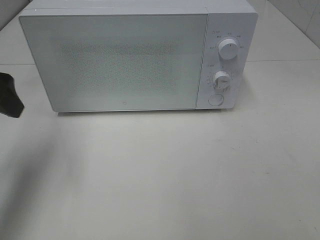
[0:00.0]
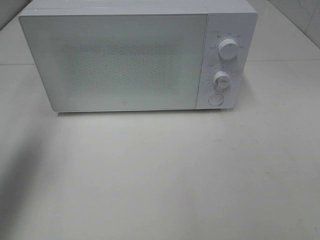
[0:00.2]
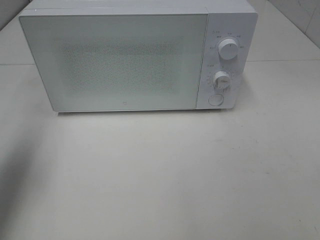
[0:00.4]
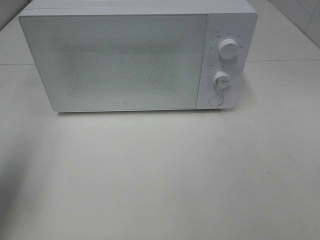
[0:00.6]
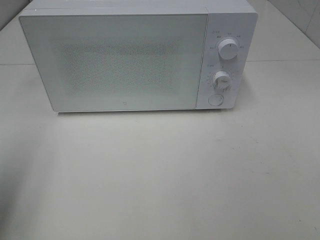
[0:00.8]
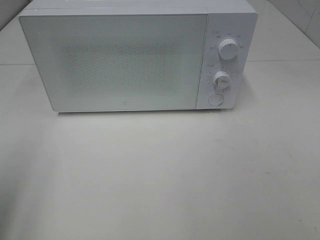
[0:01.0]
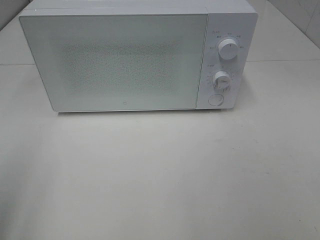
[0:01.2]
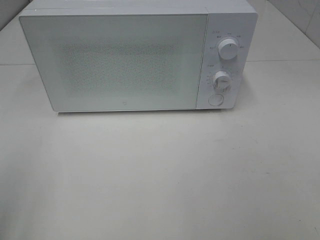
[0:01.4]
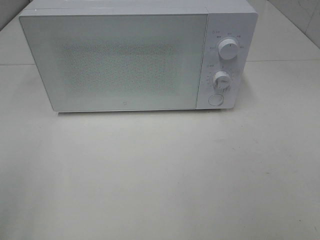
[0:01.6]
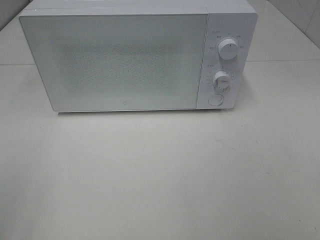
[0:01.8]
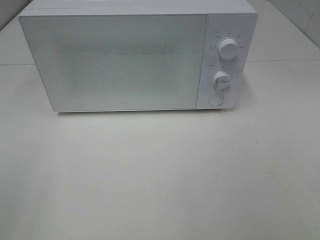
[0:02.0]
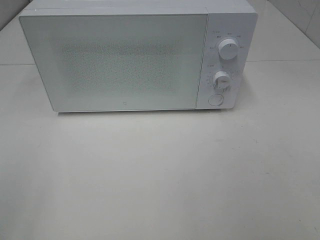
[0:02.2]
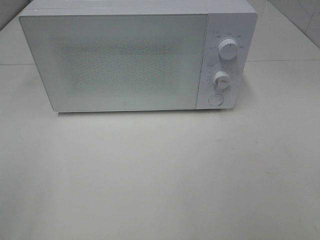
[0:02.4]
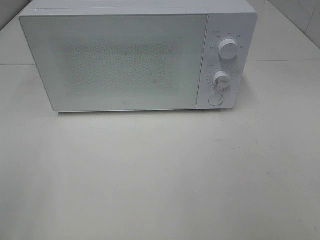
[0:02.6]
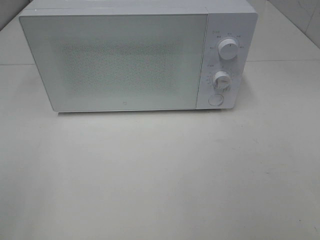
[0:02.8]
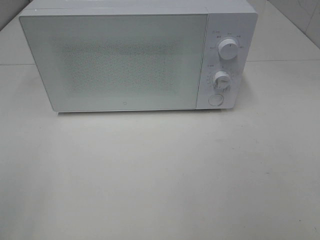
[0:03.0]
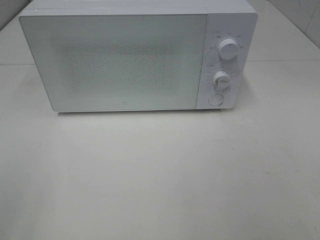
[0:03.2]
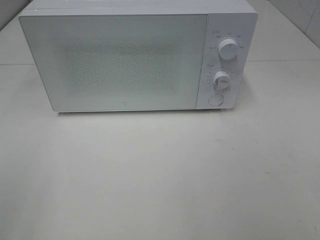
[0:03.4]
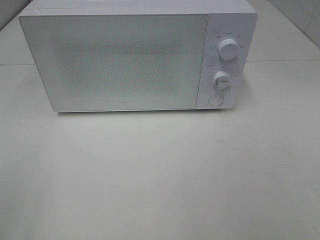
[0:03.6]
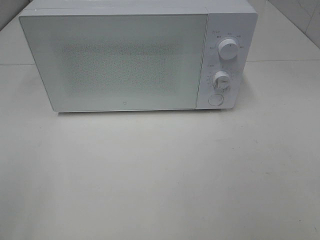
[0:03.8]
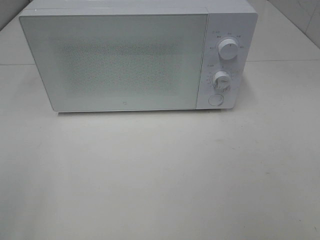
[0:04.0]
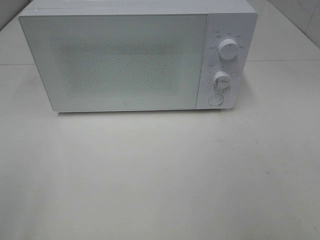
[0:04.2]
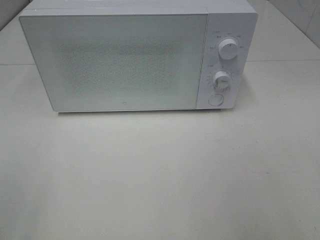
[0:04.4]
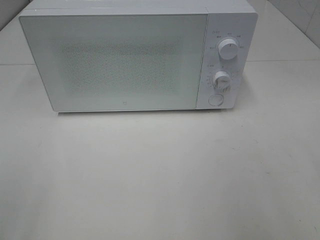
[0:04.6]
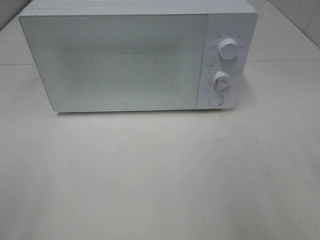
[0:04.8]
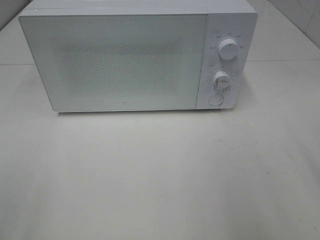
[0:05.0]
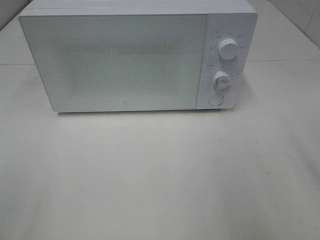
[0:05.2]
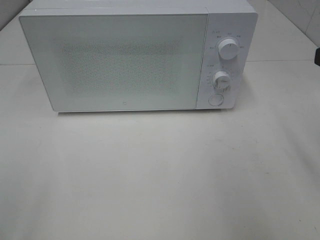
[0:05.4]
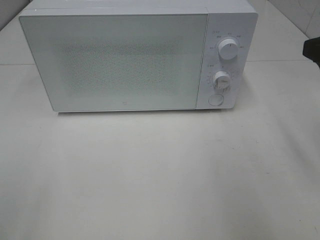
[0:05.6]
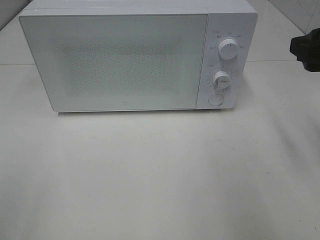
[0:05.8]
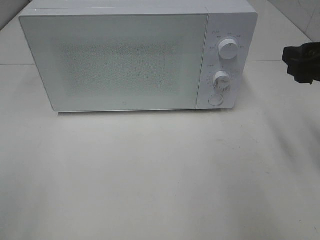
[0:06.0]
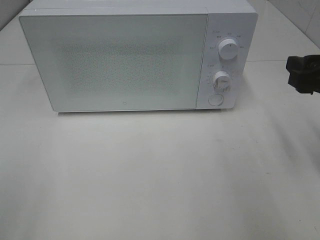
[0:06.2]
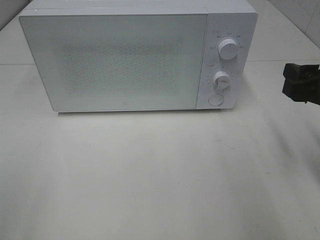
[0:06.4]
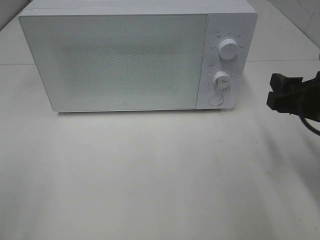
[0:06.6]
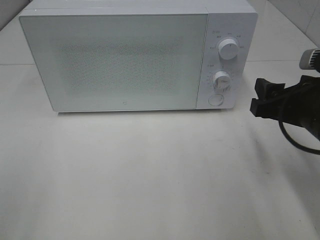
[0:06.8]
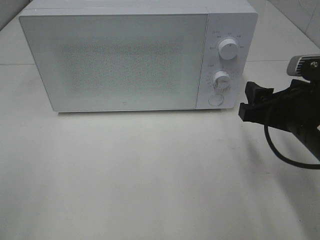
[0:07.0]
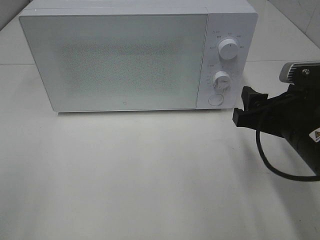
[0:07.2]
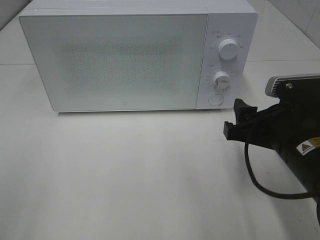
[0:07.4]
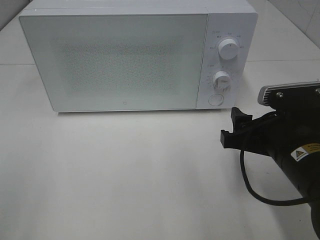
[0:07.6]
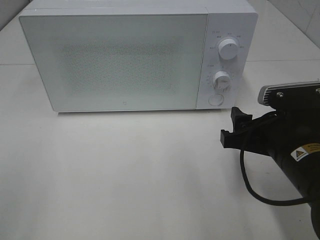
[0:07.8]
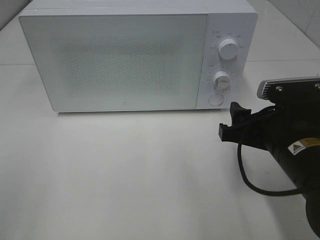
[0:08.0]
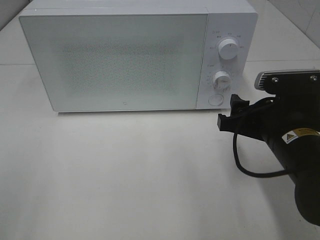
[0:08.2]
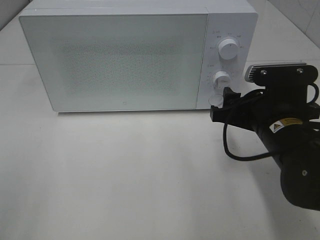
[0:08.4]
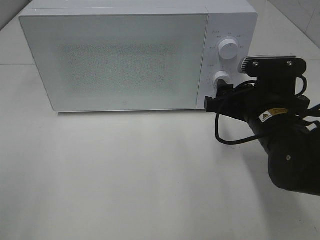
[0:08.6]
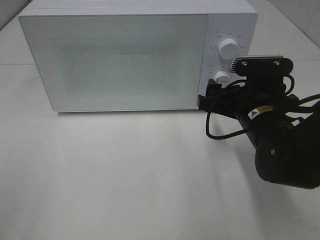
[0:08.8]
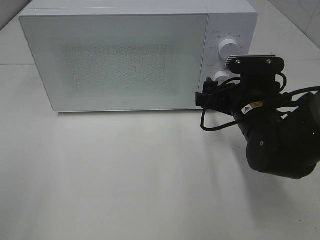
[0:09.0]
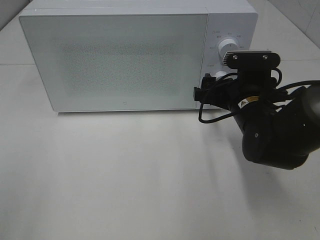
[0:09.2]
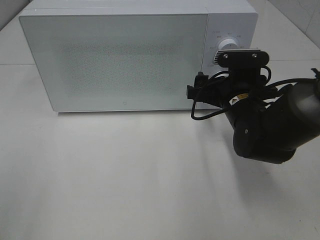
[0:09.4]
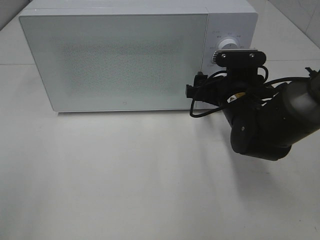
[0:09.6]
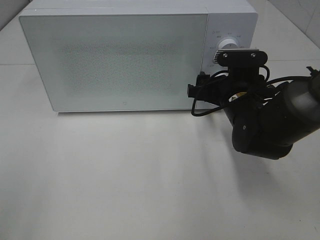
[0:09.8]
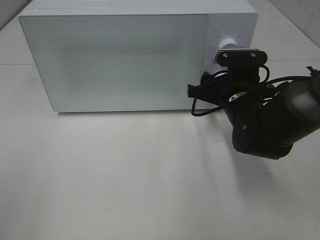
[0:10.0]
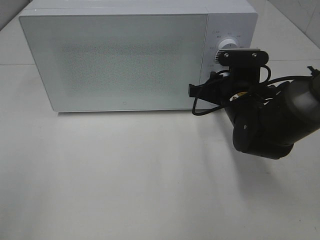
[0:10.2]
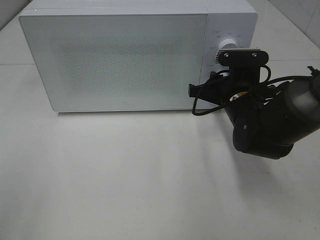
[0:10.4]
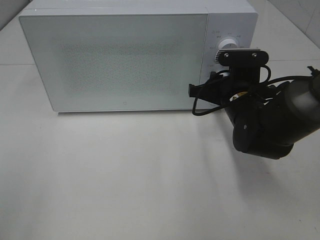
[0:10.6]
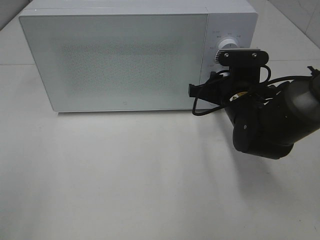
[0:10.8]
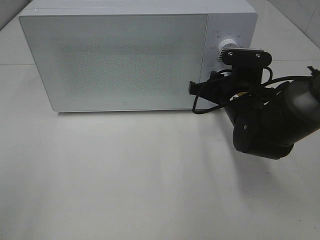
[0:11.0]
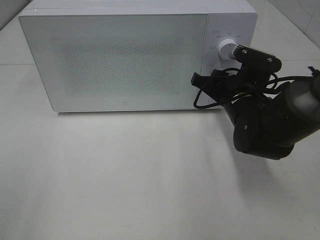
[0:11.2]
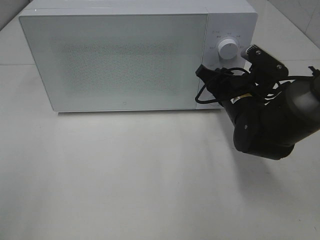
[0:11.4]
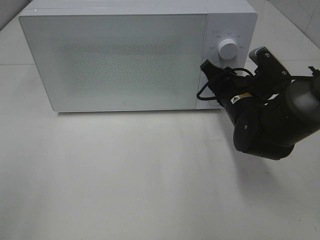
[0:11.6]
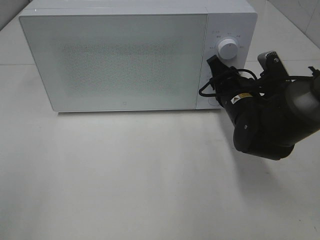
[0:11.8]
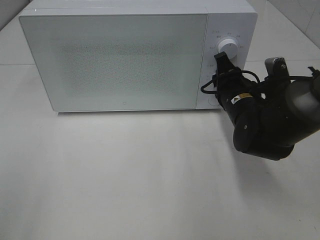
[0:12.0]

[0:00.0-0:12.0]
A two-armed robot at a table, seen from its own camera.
Task of the whole recording: Heat Sandwich.
0:00.0 to 0:01.6: The left gripper is displaced backward by roughly 25 cm.
0:04.4 to 0:06.0: The right gripper shifts about 15 cm forward.
0:06.0 to 0:07.6: The right gripper moves downward and to the left, about 10 cm.
0:07.6 to 0:09.0: The right gripper is displaced forward by some 10 cm.
0:09.0 to 0:10.4: The right gripper closes its fingers.

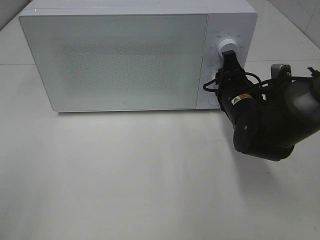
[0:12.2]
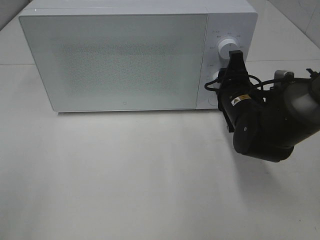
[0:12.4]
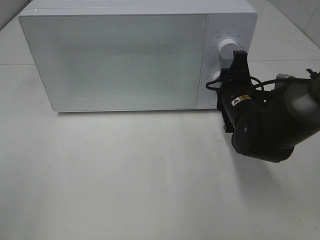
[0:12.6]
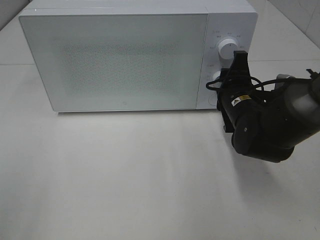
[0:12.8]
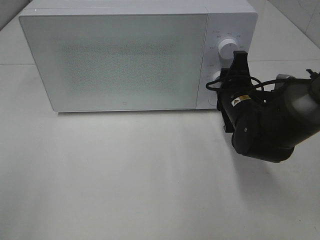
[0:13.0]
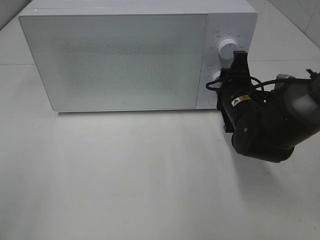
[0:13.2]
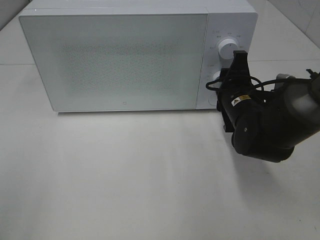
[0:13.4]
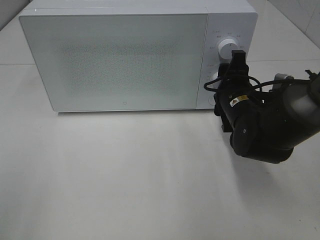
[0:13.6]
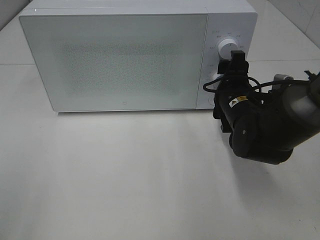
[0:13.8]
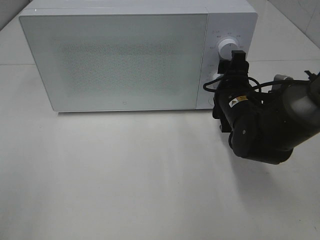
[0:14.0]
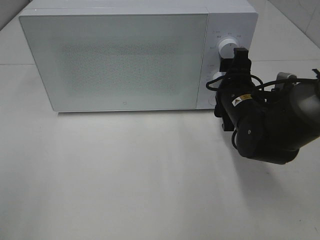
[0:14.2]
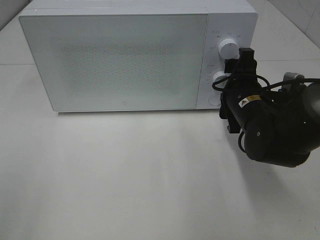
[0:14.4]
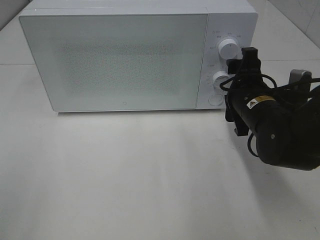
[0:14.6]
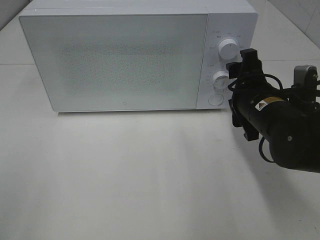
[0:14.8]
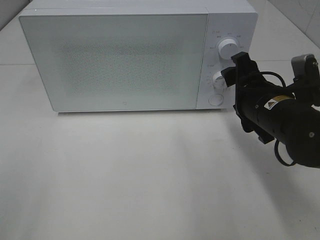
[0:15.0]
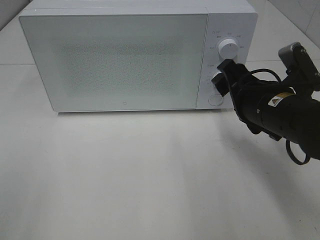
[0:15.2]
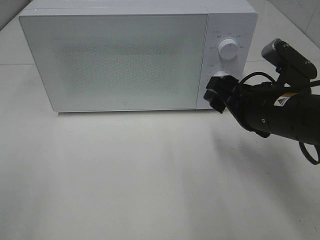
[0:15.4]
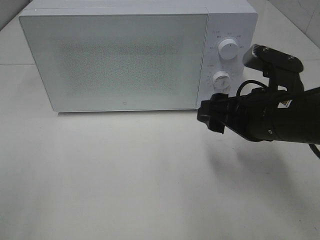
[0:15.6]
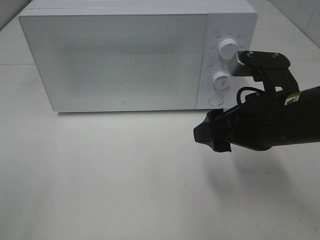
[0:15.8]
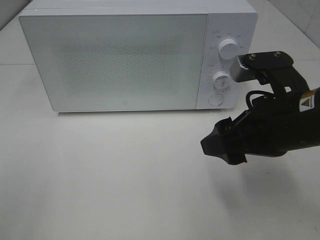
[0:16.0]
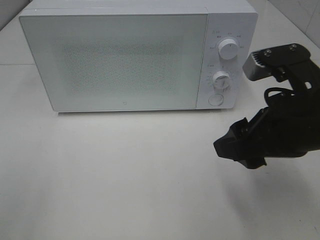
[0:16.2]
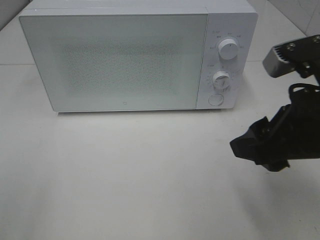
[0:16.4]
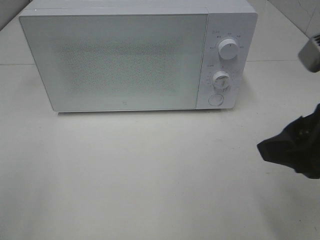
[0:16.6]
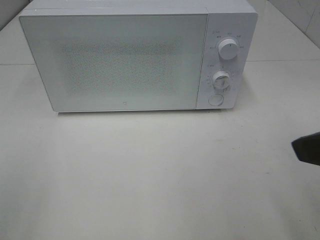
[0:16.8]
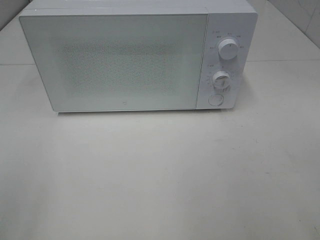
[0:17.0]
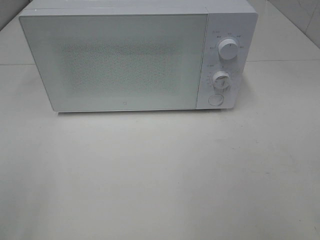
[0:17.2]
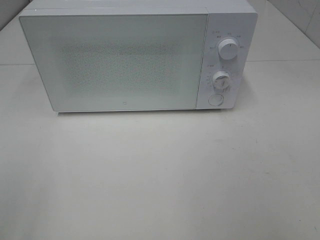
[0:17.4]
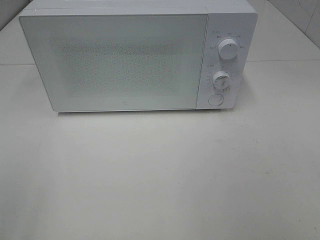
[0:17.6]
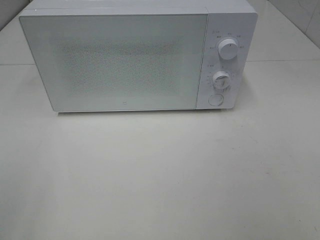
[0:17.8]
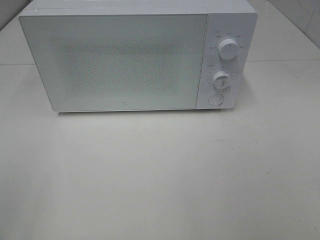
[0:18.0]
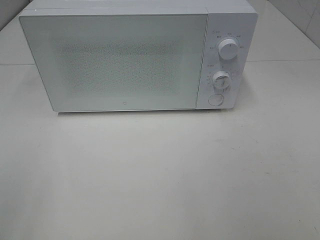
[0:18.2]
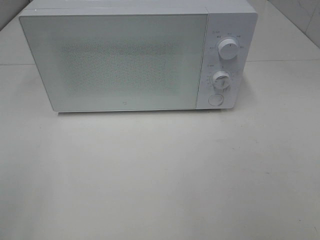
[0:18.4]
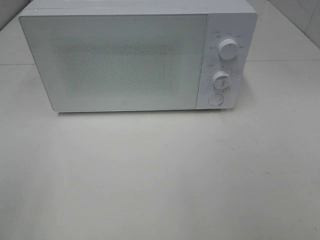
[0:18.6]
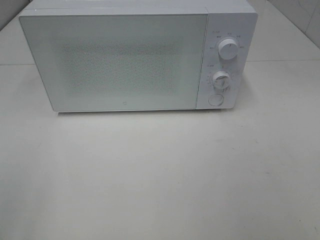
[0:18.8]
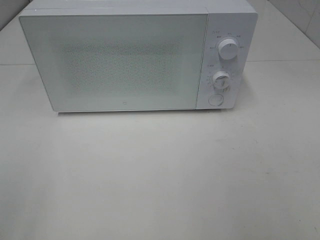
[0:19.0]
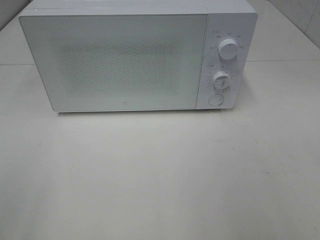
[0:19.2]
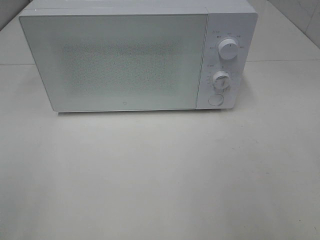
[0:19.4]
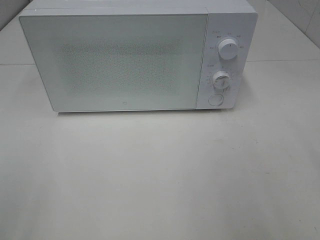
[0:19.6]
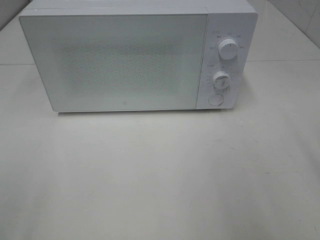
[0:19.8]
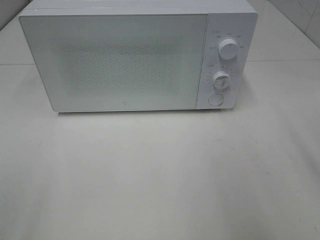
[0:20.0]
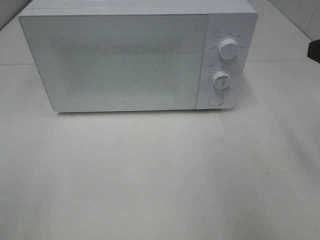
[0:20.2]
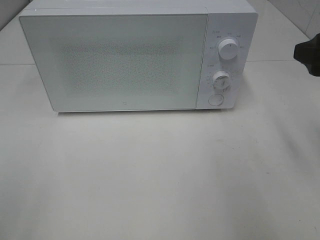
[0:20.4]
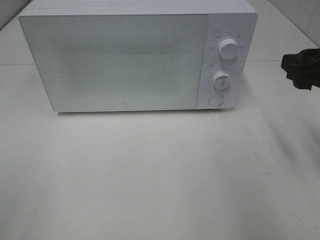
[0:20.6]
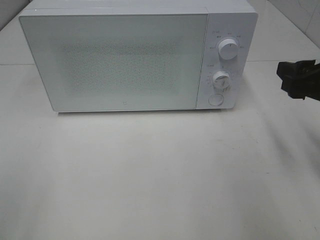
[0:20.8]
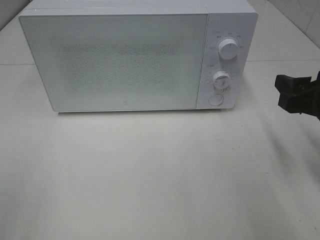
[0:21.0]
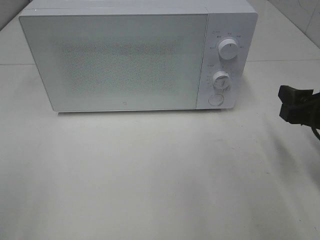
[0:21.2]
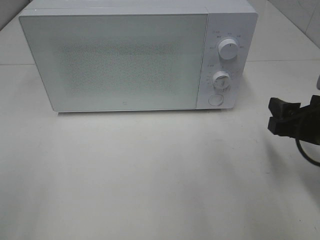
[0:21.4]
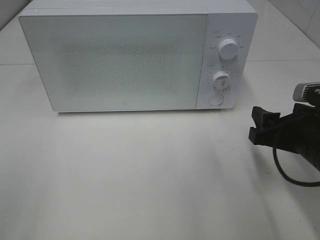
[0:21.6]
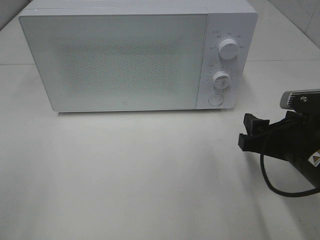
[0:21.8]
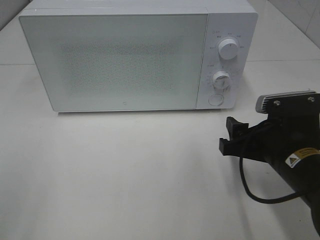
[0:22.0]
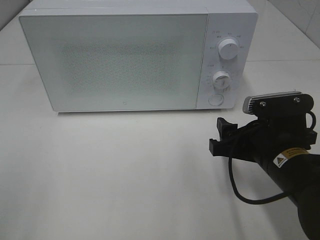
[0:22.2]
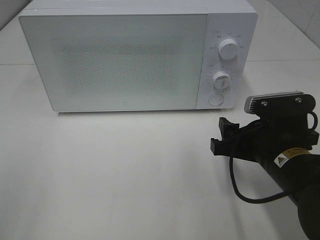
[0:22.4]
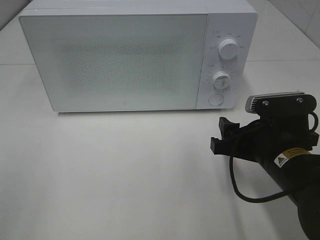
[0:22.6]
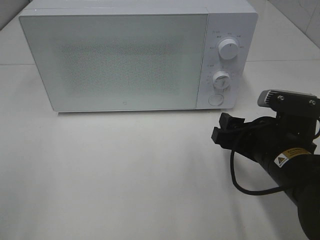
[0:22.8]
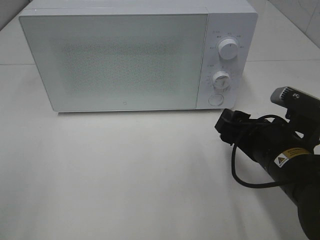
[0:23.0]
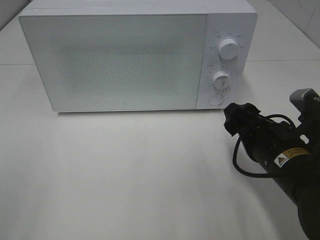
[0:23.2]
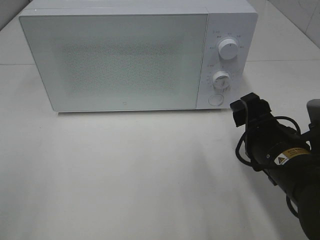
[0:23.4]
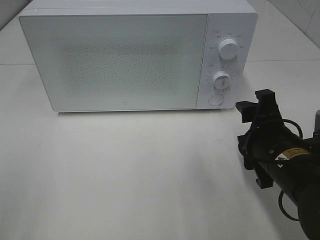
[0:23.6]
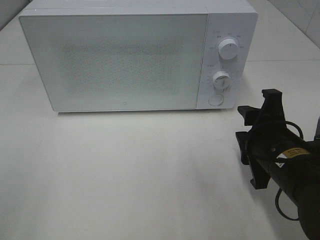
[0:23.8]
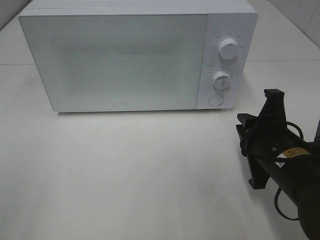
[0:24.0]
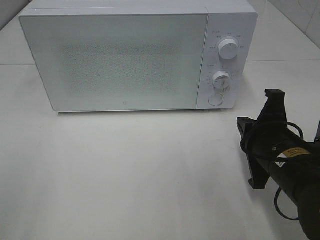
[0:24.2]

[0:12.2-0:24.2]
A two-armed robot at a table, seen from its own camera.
Task of the whole recording: Heat Sandwich.
Step, 0:12.2 to 0:14.4: Right hand: twist timer button.
0:12.2 to 0:13.8: The right gripper opens.
0:13.8 to 0:15.2: The right gripper is displaced backward and upward by approximately 10 cm.
0:15.2 to 0:16.6: The right gripper heads backward and upward, covering roughly 15 cm.
0:16.6 to 0:18.2: The right gripper shifts some 15 cm backward and to the right.
0:19.8 to 0:21.2: The right gripper shifts about 15 cm downward and forward.
0:21.2 to 0:22.6: The right gripper goes approximately 10 cm to the left.
0:22.6 to 0:24.2: The right gripper closes its fingers.
